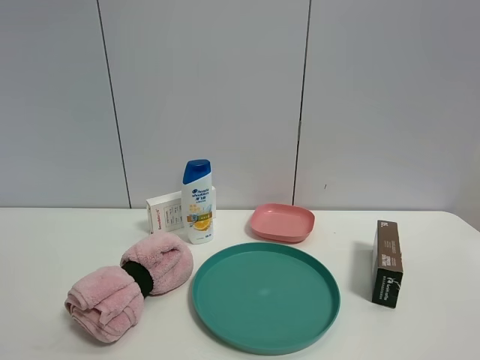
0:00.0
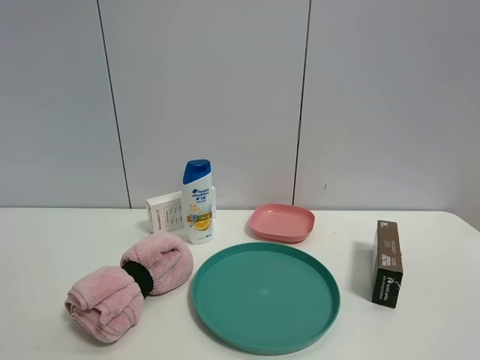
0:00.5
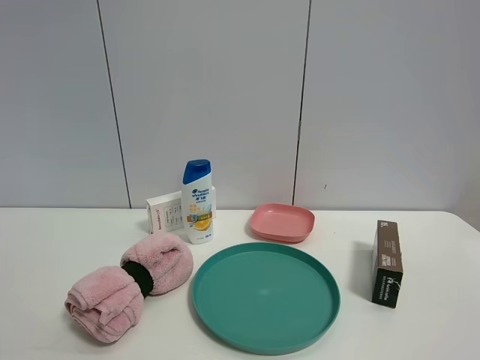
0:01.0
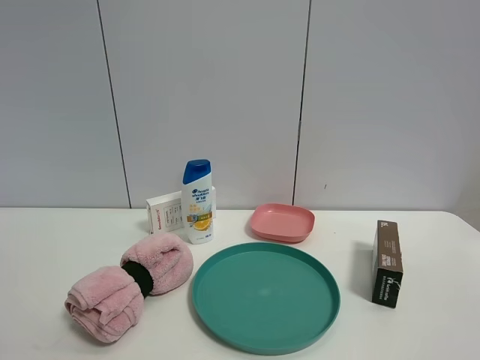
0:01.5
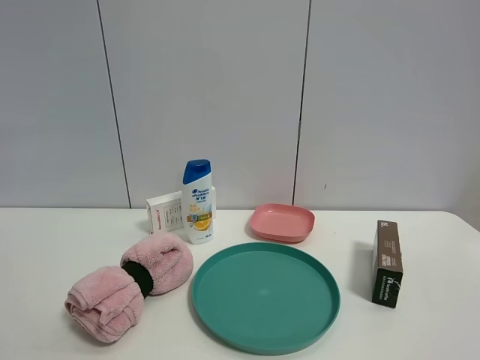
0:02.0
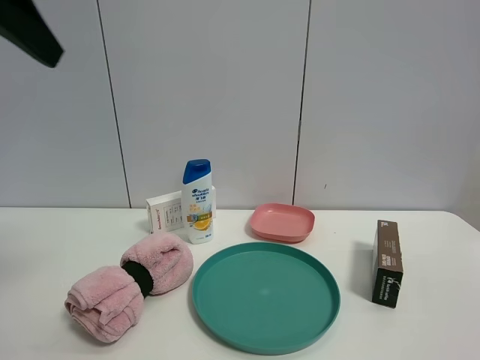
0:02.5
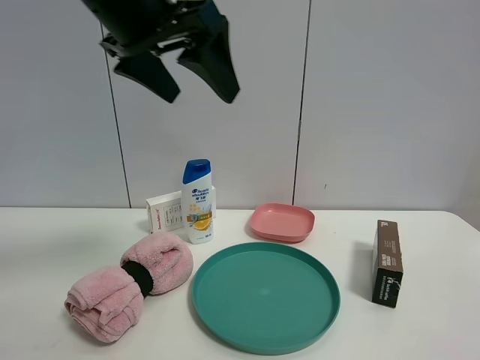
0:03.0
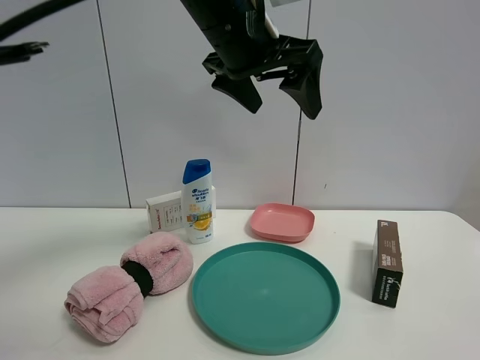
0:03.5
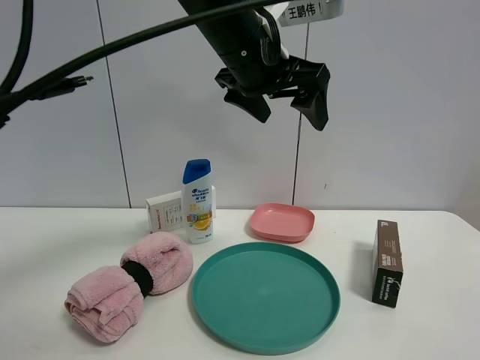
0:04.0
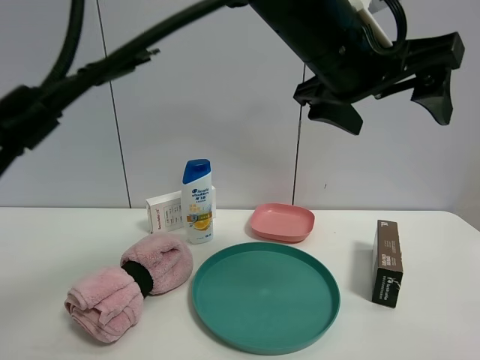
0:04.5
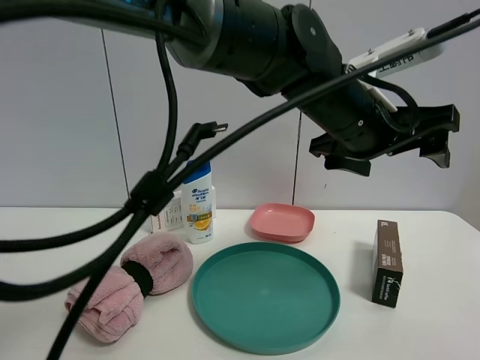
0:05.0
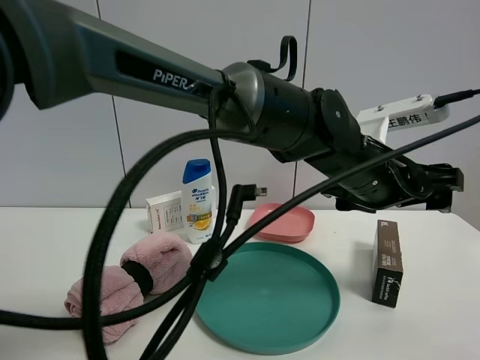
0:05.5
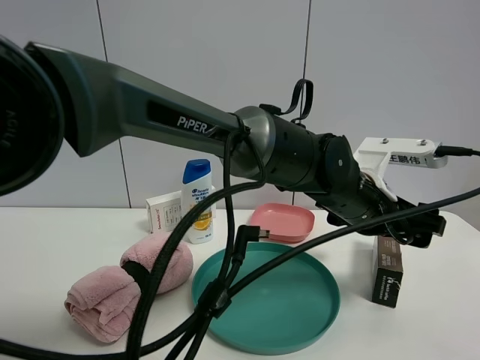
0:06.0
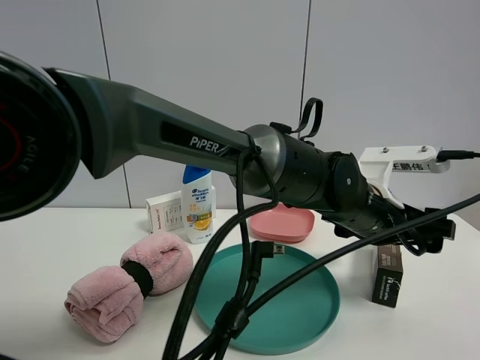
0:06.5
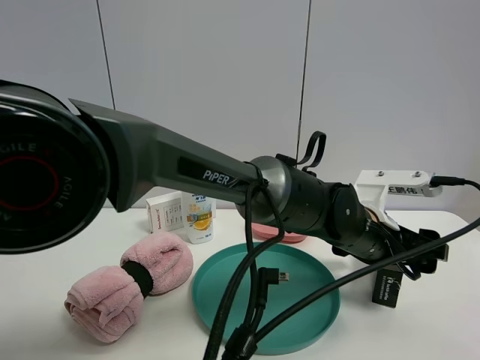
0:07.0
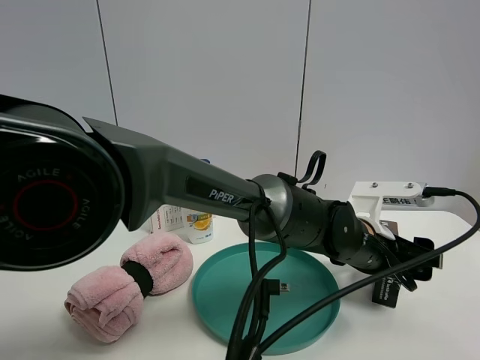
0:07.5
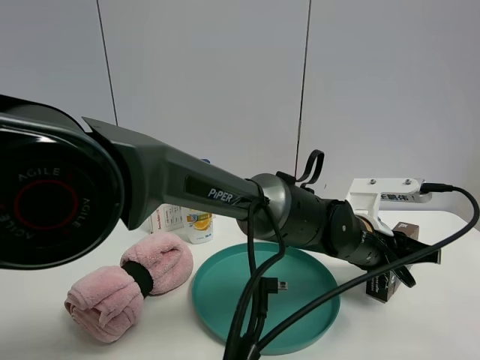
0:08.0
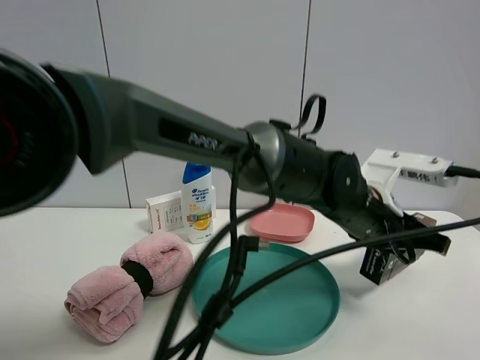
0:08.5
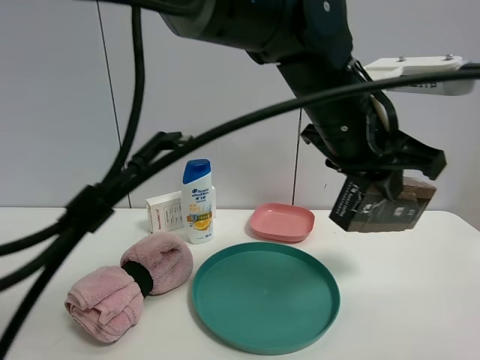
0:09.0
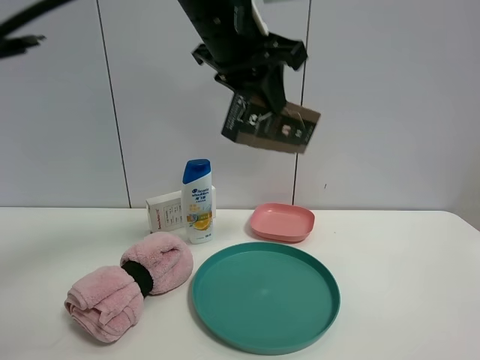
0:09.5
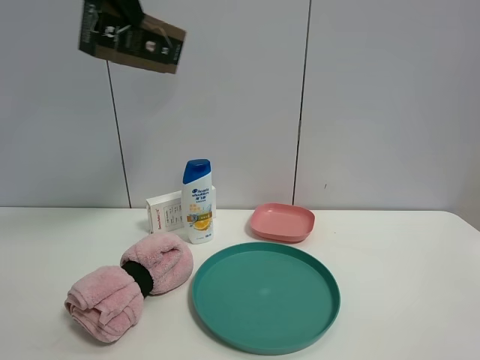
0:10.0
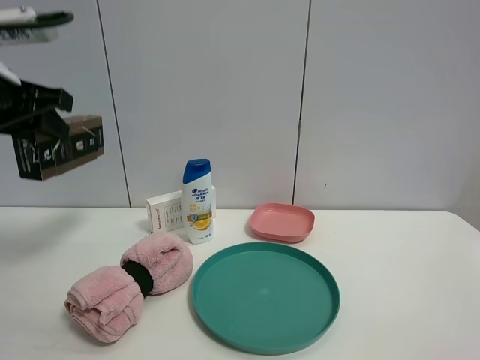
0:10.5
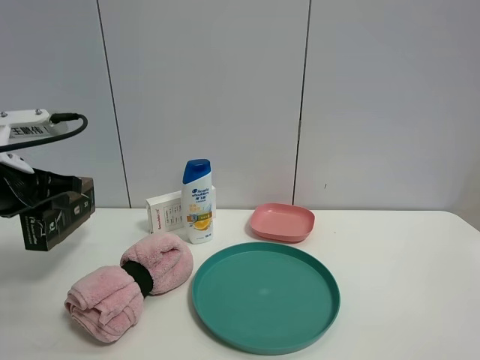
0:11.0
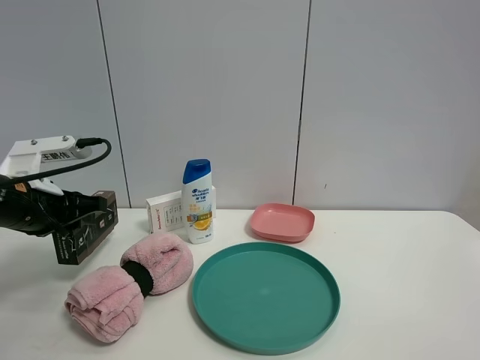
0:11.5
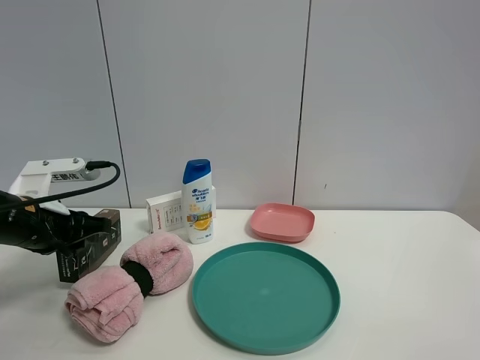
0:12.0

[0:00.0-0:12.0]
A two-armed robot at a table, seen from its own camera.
Task of the whole recording: the gripper move the object.
Step, 0:00.0 to 0:07.5: Grasp the brown box with the left gripper.
0:02.0 to 0:04.0: The left gripper travels to the right and forward by roughly 40 cm.
0:04.0 to 0:06.0: The left gripper goes about 20 cm downward and to the right.
0:06.0 to 0:08.0: The left gripper shifts roughly 5 cm downward, and closes up.
0:08.0 to 0:10.0: The left gripper shifts about 50 cm upward and to the left.
0:10.0 to 0:12.0: The left gripper shifts approximately 30 cm downward.

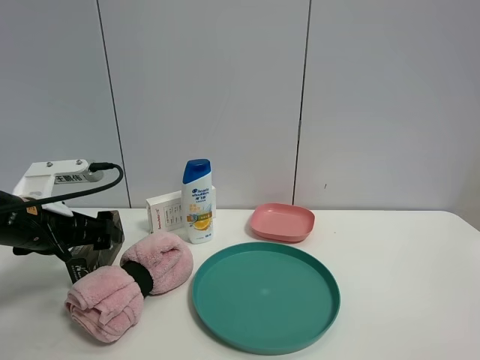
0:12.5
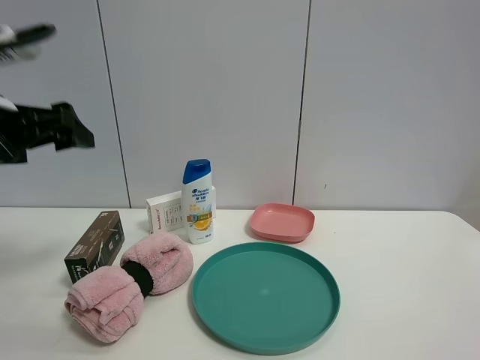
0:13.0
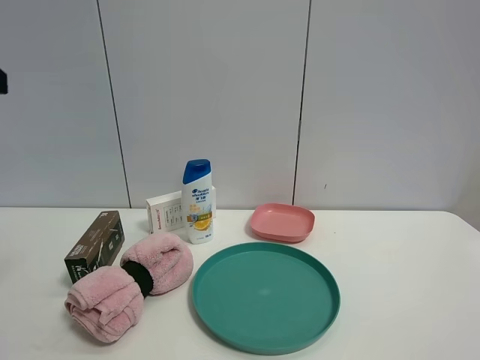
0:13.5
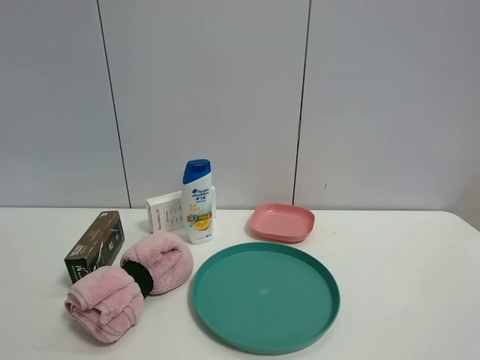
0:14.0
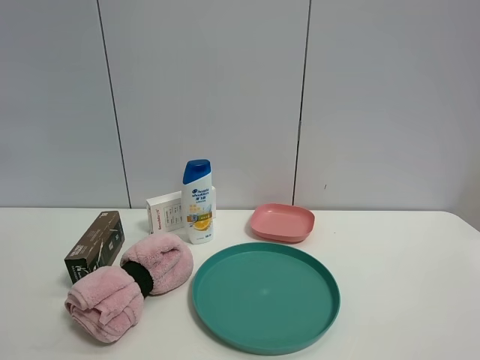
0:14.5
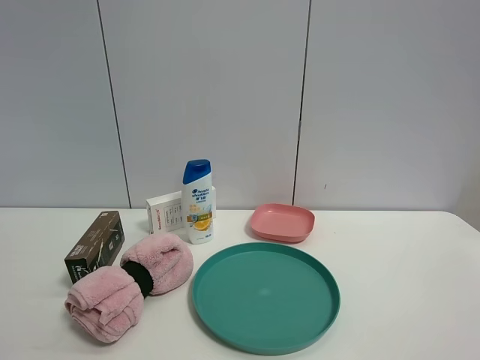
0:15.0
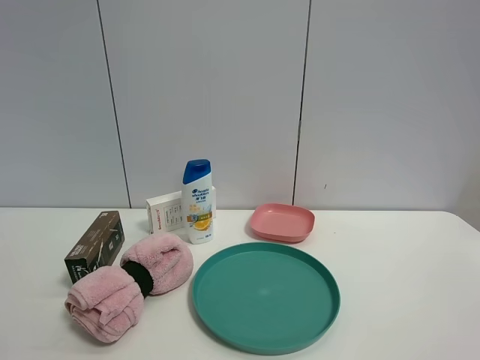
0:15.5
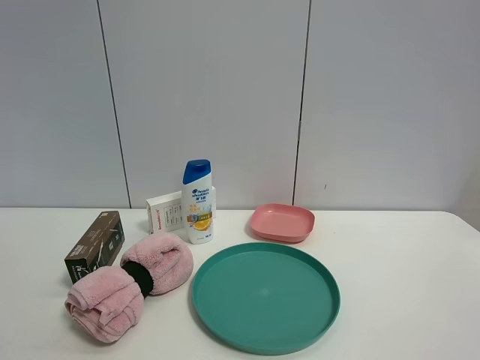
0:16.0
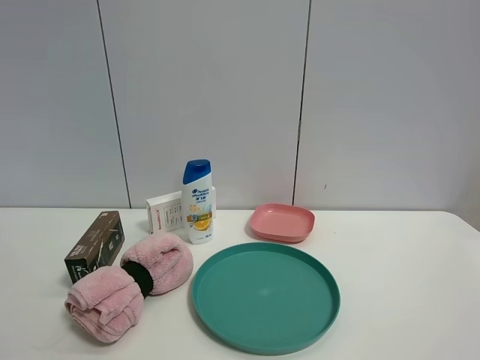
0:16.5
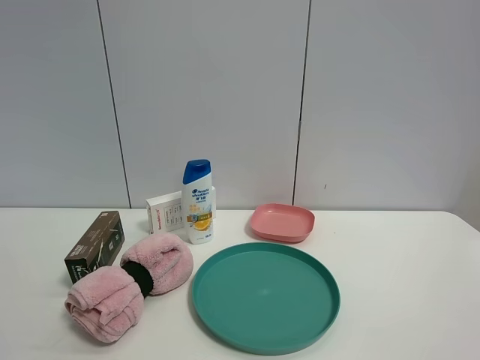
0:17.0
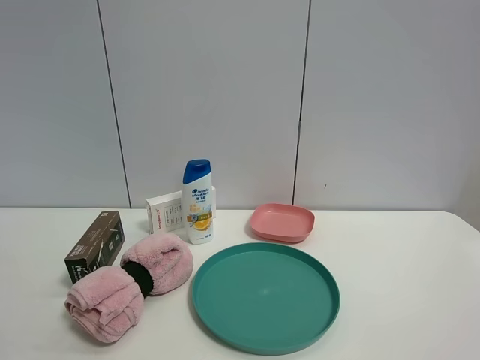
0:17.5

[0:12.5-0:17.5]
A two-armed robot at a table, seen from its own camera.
Task of the whole recording: the gripper move the object.
0:12.5 to 0:15.0: The left gripper goes roughly 35 cm backward and upward.

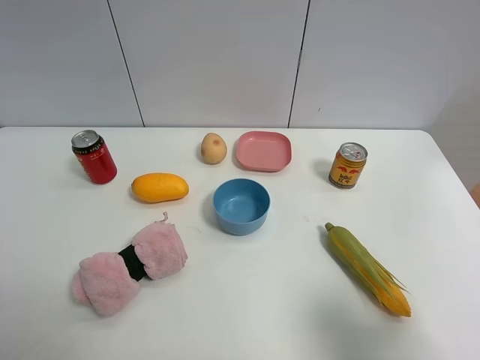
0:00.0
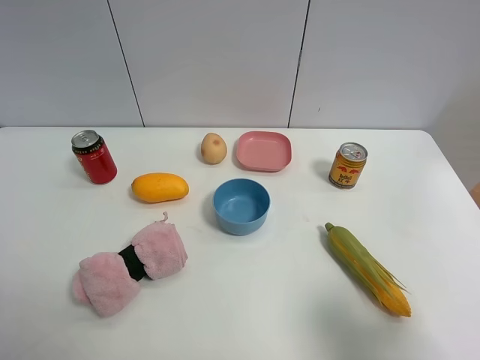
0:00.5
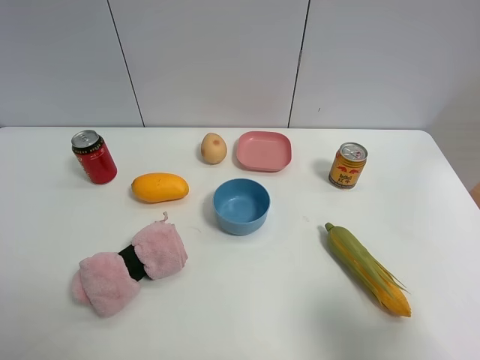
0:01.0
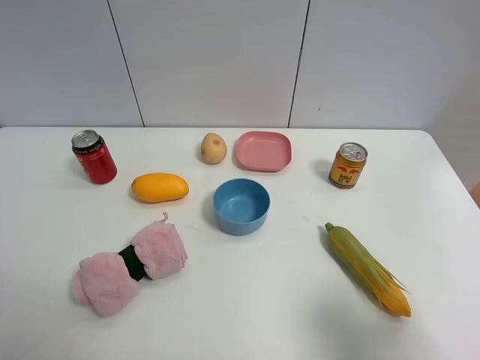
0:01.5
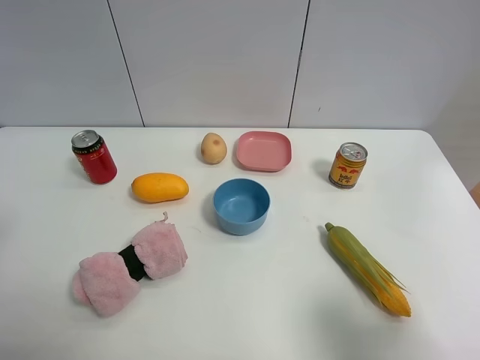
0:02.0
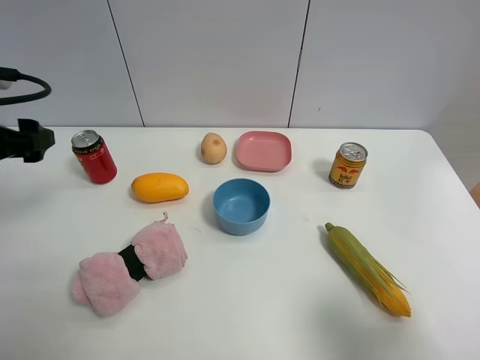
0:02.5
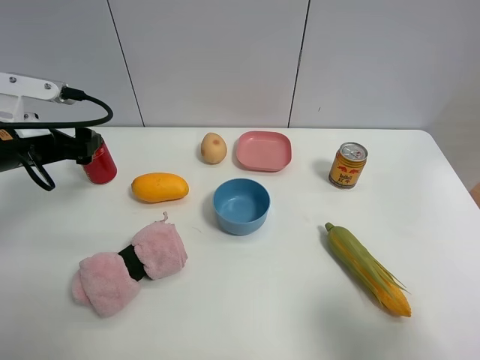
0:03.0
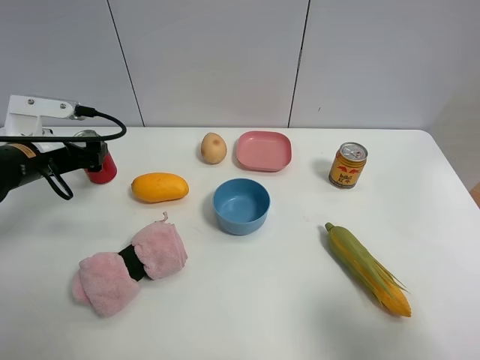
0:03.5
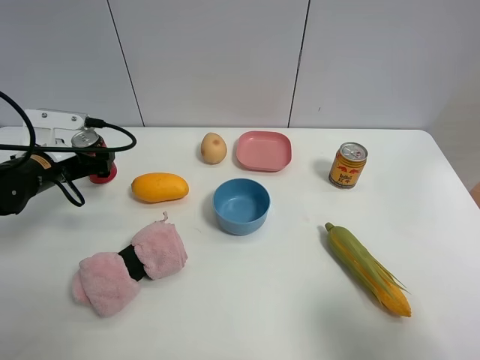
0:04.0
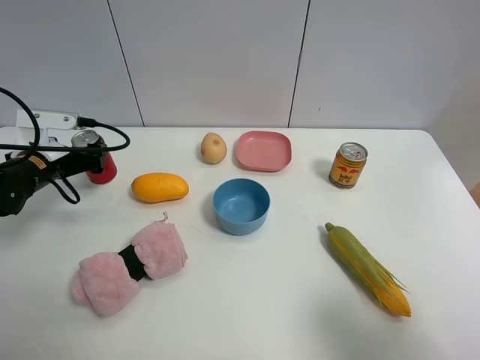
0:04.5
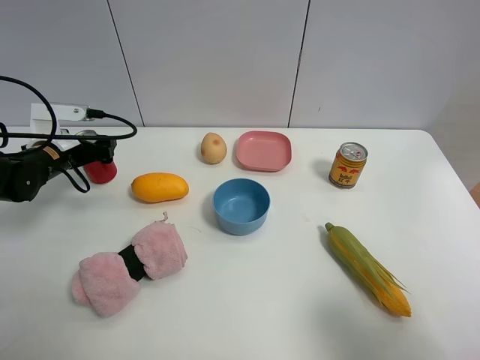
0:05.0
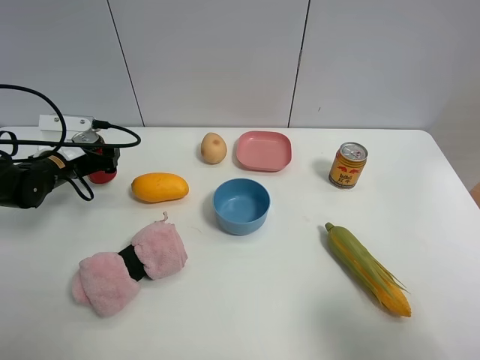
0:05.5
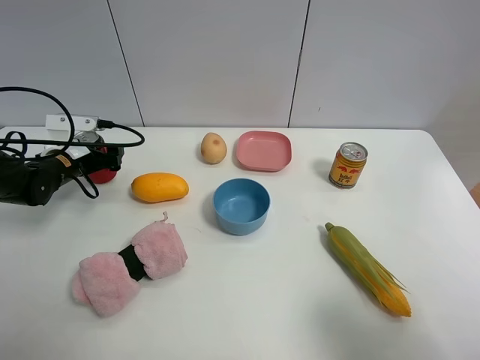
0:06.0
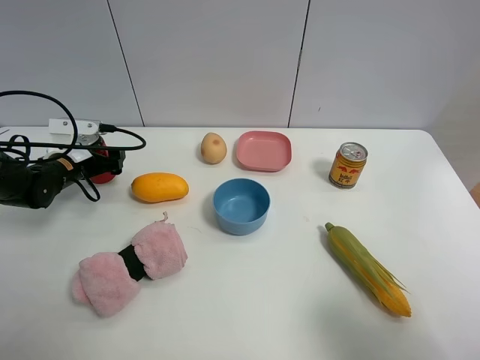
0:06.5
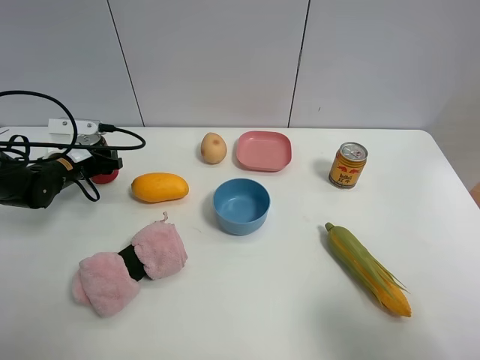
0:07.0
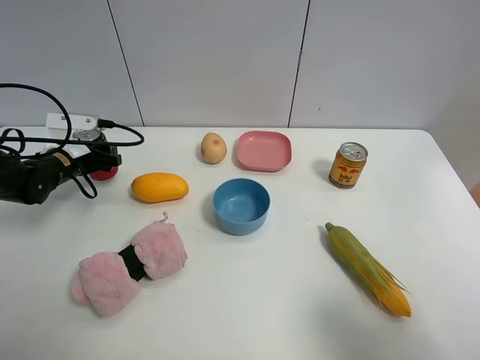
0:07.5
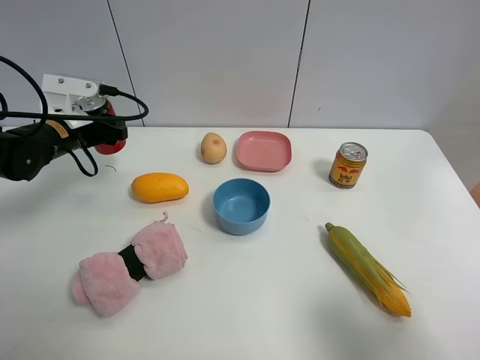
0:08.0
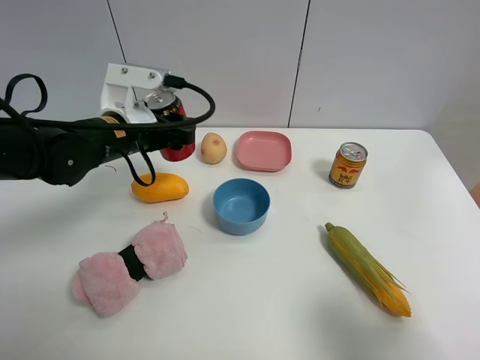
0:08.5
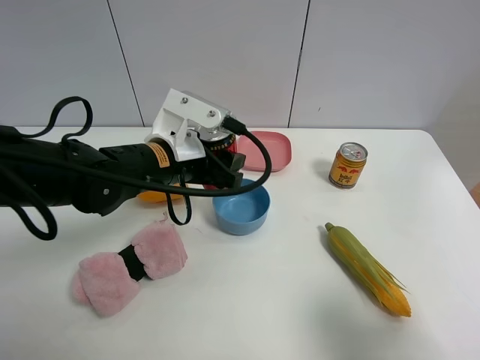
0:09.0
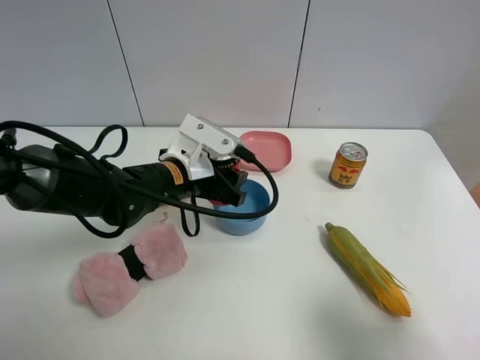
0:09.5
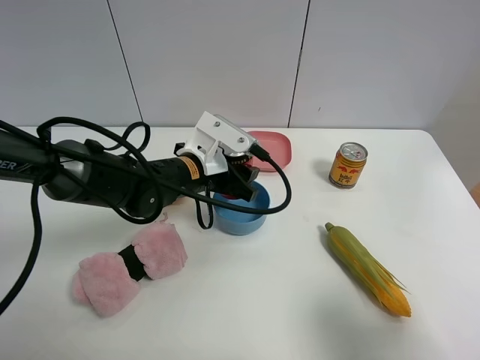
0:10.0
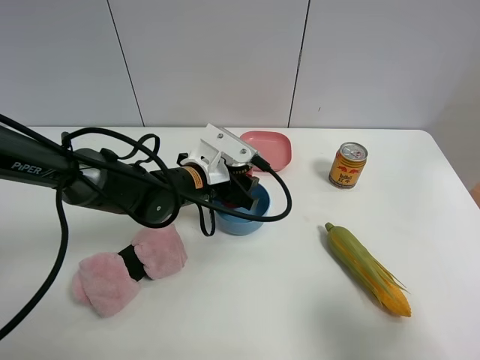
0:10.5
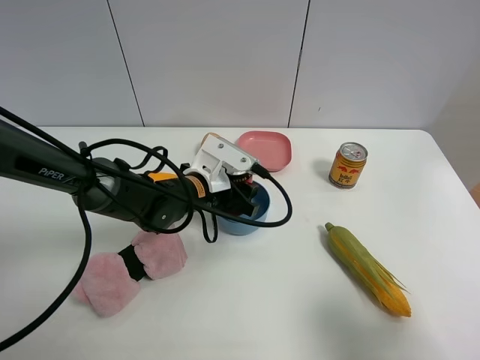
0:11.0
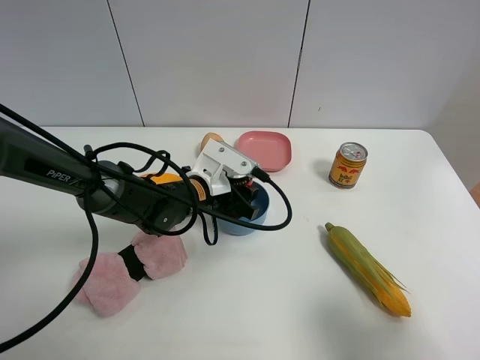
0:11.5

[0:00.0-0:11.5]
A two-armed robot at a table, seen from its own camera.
Task of the whole recording: the gripper move the object.
Step, 0:00.0 to 0:07.0: Grasp the Jia Duo Bao with the left gripper.
0:02.0 to 0:04.0: The left gripper is displaced forward and downward by some 25 cm.
0:04.0 to 0:06.0: The left gripper heads forward, covering some 5 cm.
0:06.0 to 0:07.5: The left gripper closes.
0:07.5 to 0:09.5: The left gripper is displaced to the right and backward by about 25 cm.
0:09.5 to 0:11.5: The left gripper moves downward, some 5 cm.
